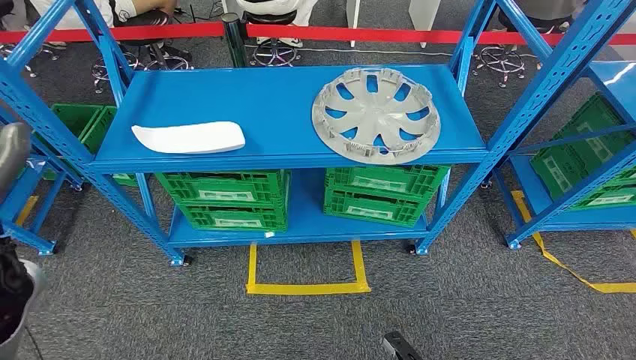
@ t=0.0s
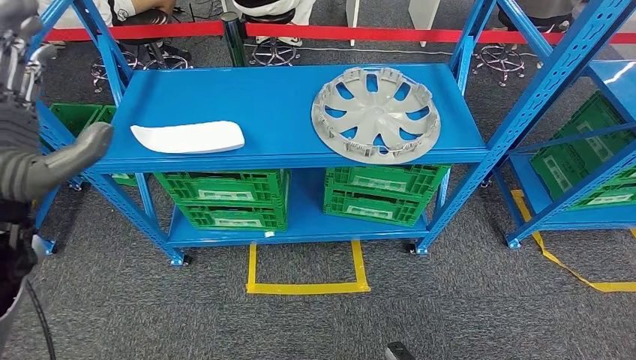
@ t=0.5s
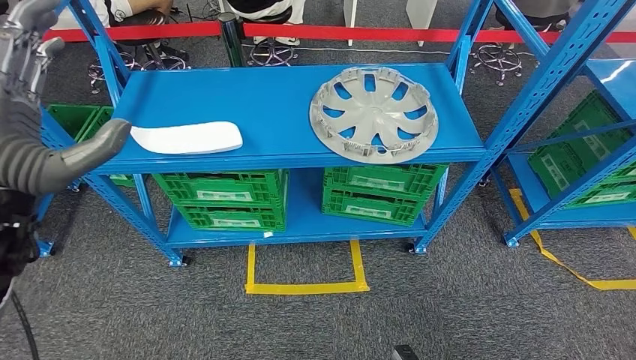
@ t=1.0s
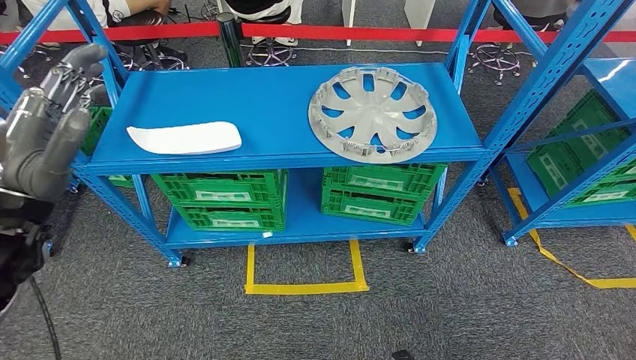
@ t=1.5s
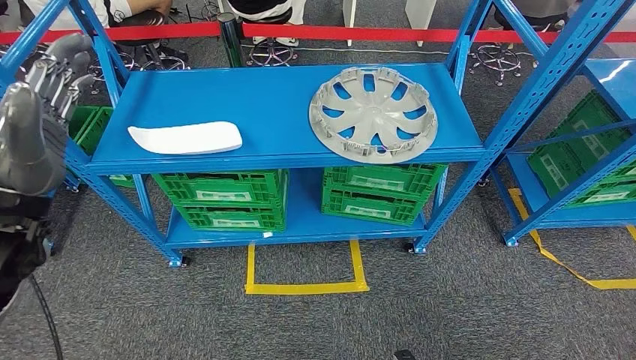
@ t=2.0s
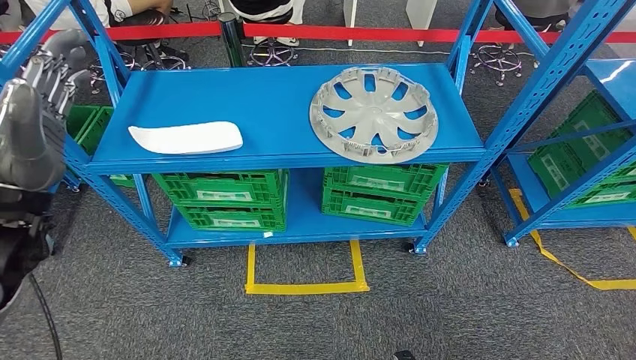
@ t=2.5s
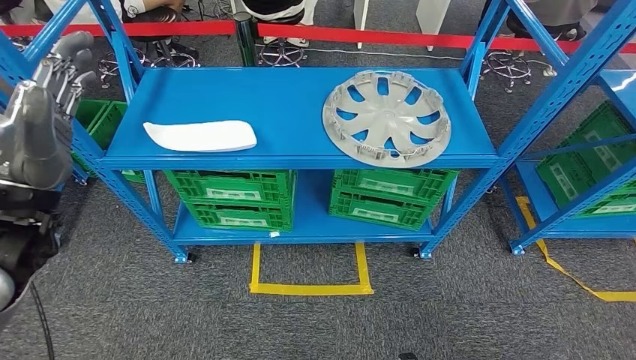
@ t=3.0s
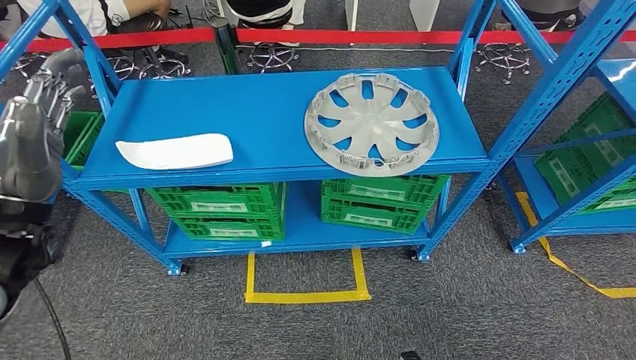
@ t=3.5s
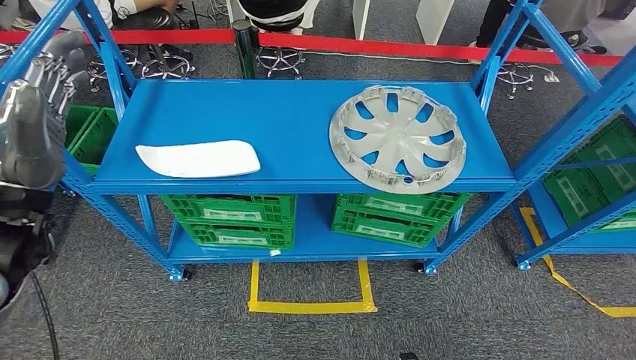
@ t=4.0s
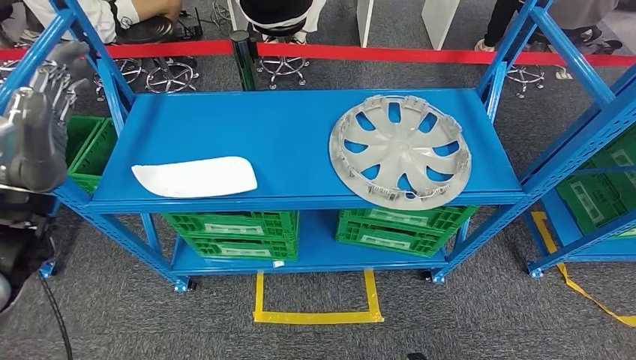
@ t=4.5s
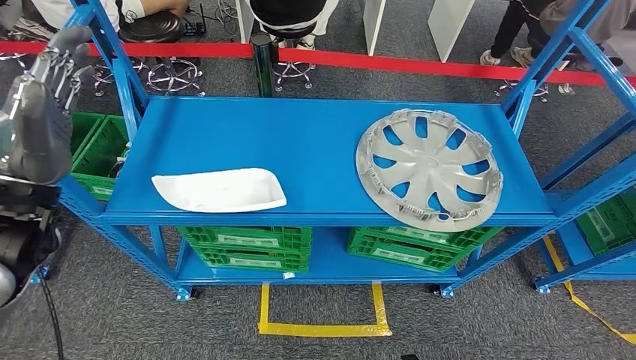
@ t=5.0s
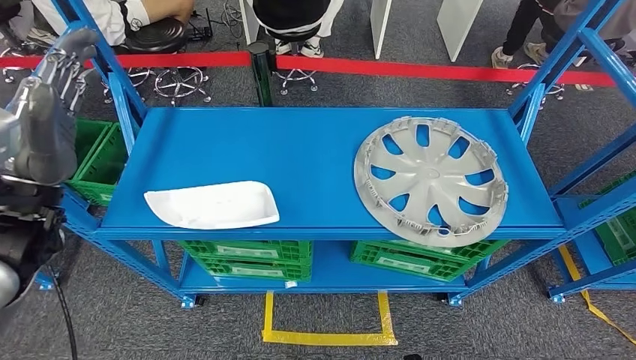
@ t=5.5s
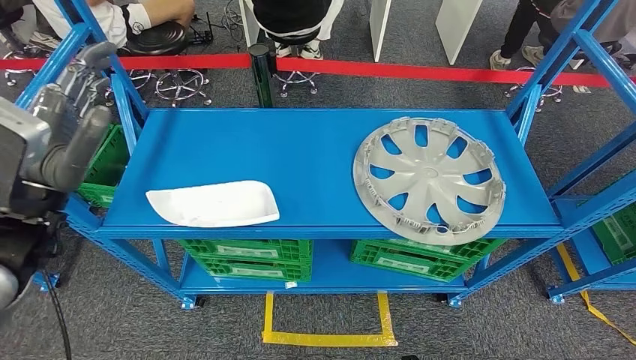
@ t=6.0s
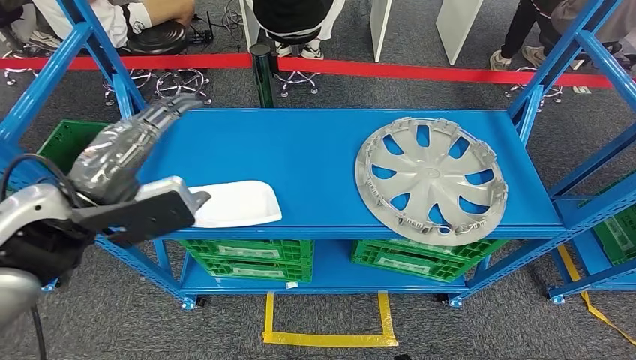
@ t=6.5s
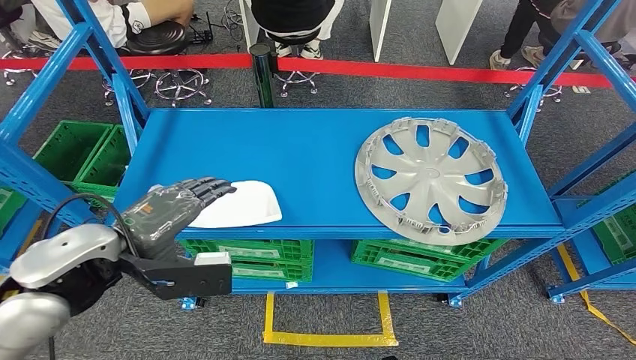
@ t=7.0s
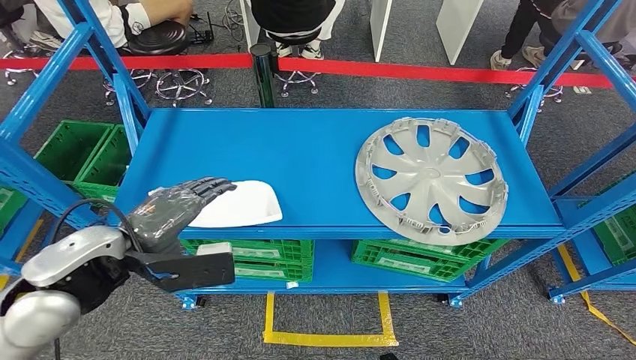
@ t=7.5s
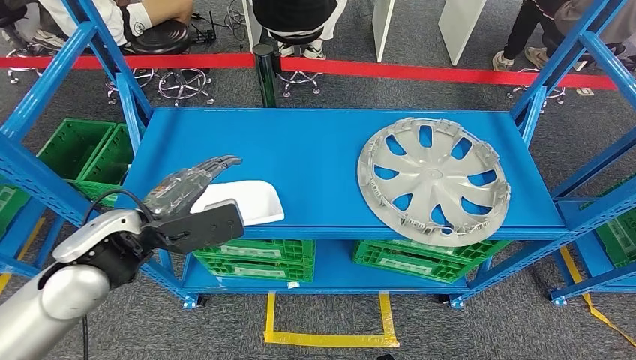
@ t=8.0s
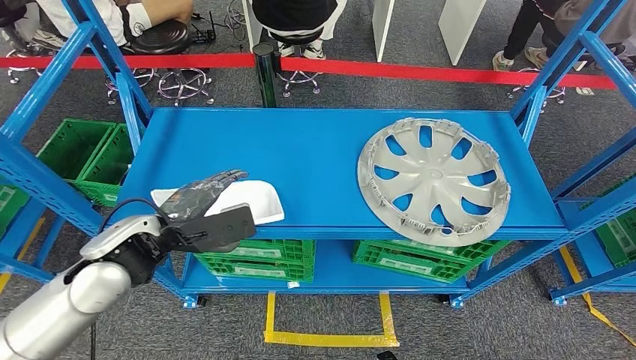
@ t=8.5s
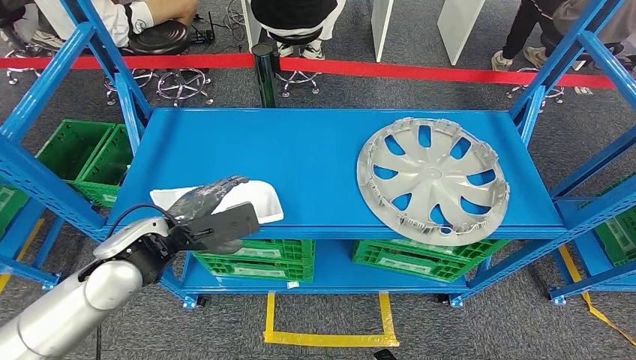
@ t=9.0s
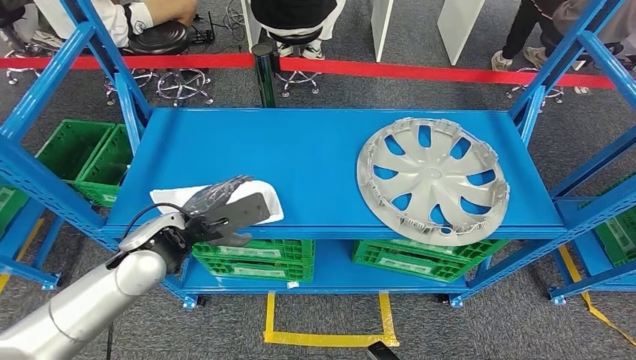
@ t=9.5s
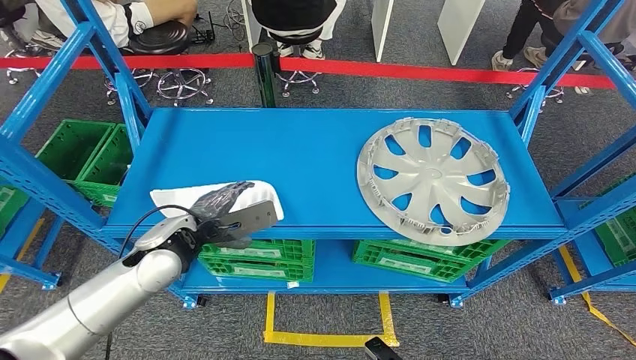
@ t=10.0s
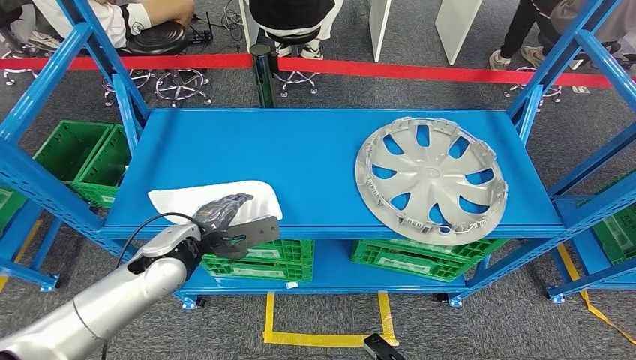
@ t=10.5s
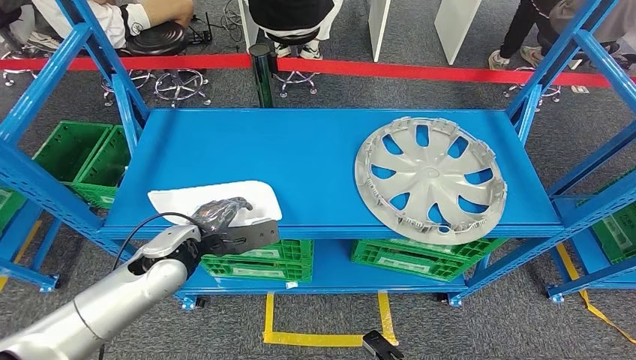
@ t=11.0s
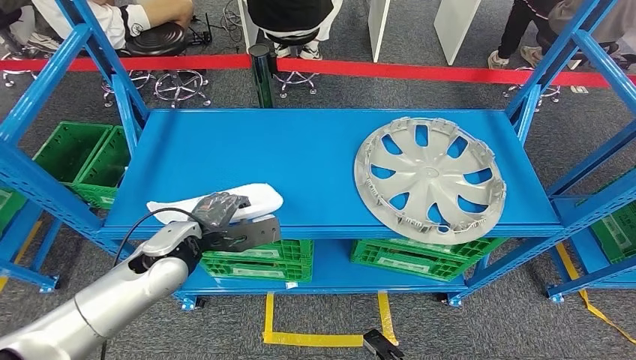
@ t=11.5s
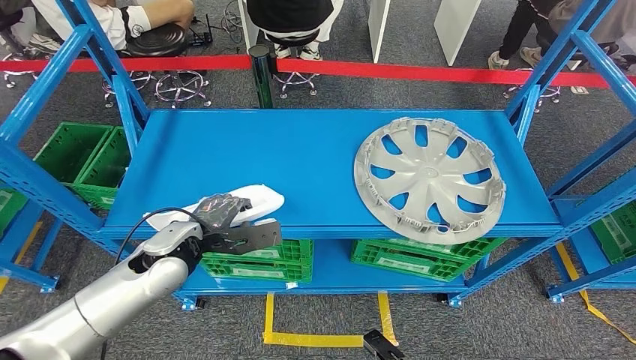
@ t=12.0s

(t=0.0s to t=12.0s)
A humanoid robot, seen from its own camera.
t=8.0s - t=10.0s: The left hand heads downward and forward, covering approximately 10 cm.
t=10.0s - t=12.0s: There are only small adjustments of the hands.

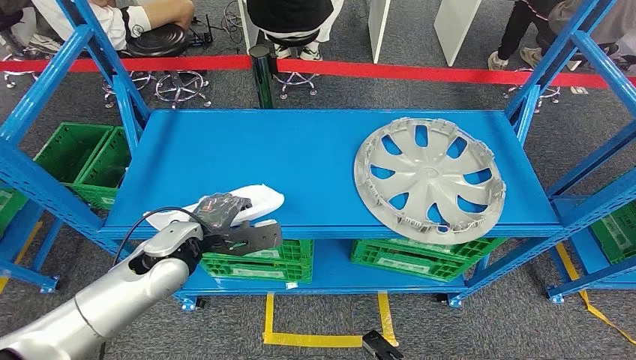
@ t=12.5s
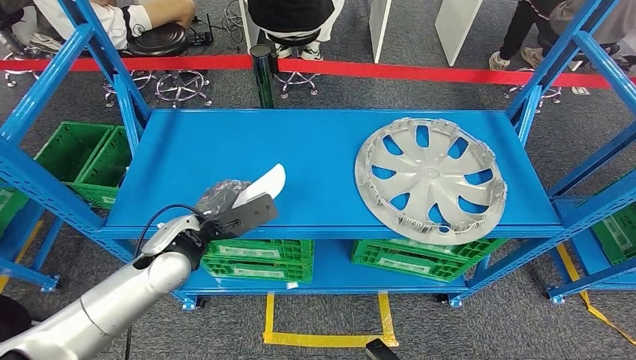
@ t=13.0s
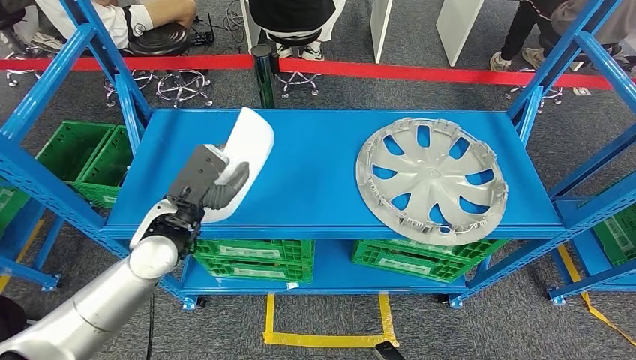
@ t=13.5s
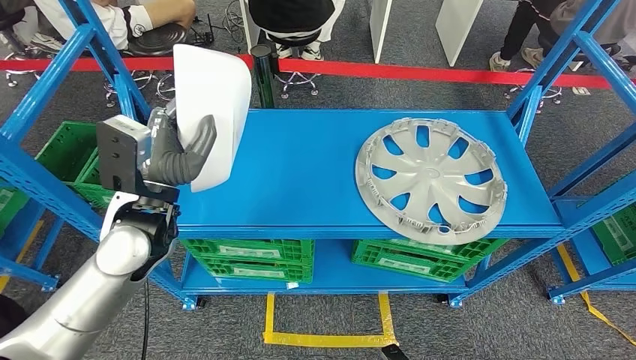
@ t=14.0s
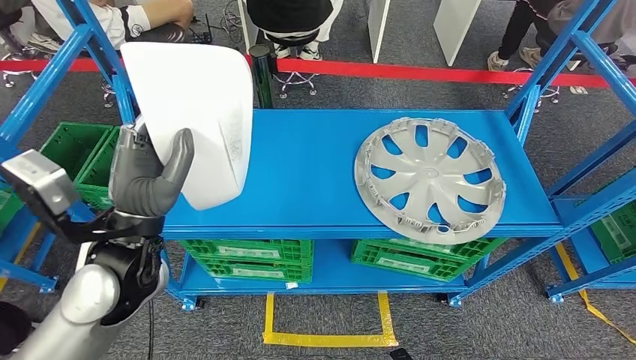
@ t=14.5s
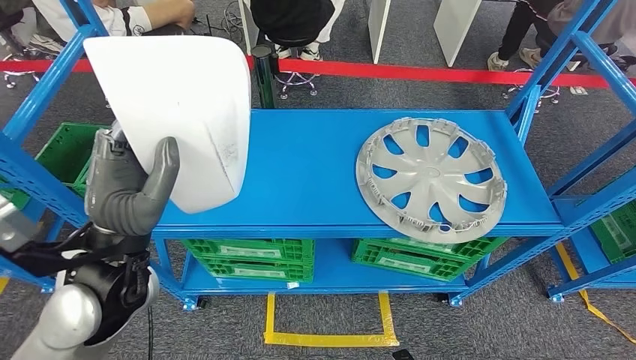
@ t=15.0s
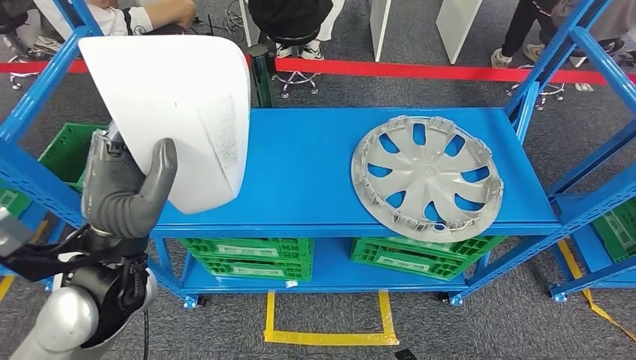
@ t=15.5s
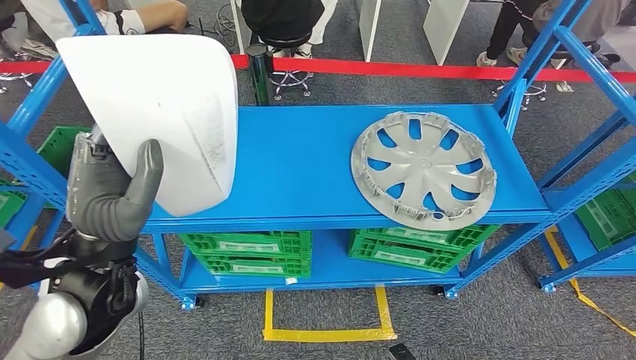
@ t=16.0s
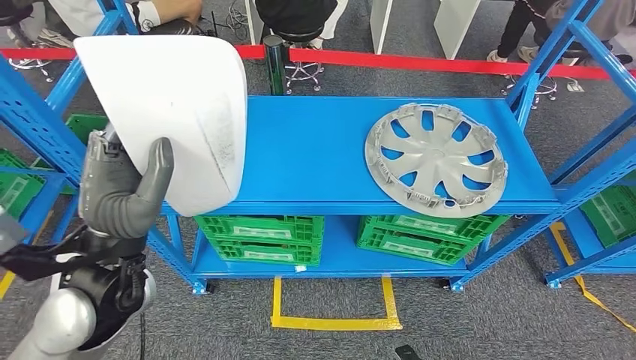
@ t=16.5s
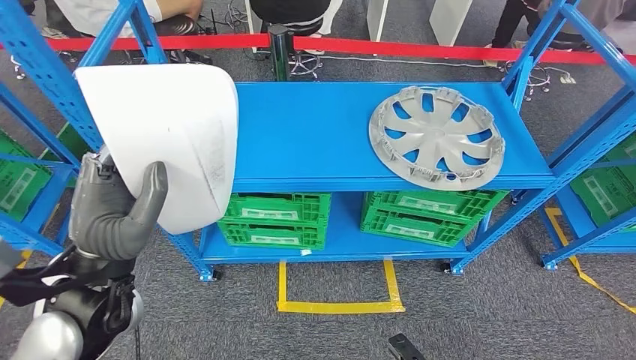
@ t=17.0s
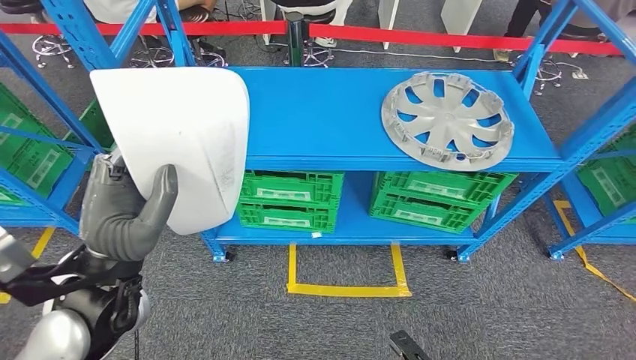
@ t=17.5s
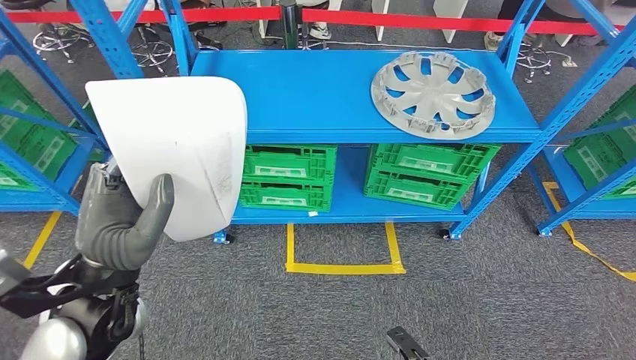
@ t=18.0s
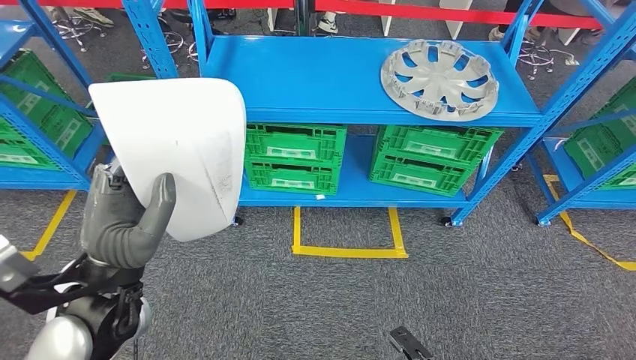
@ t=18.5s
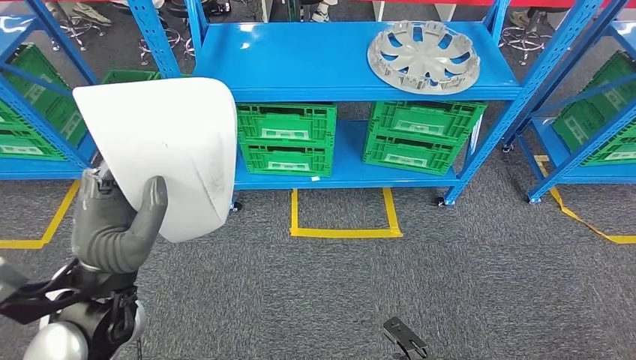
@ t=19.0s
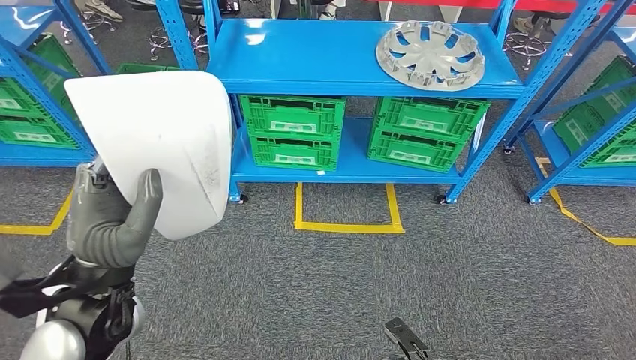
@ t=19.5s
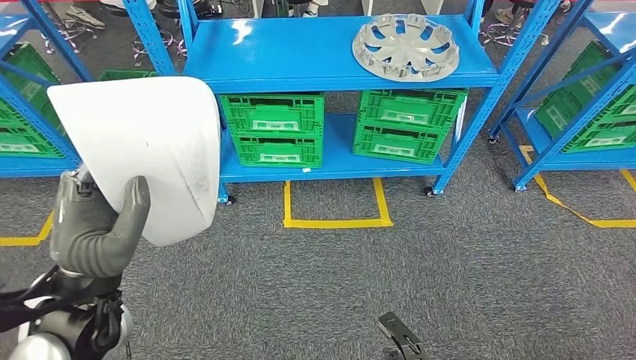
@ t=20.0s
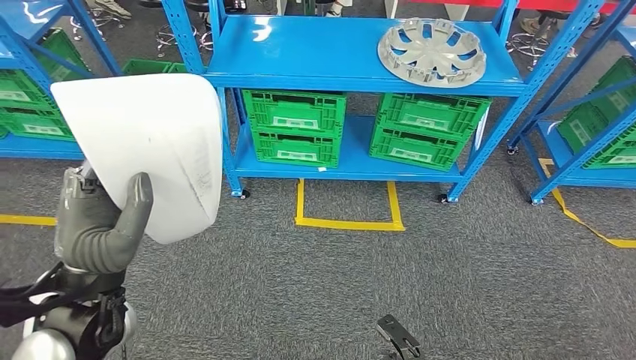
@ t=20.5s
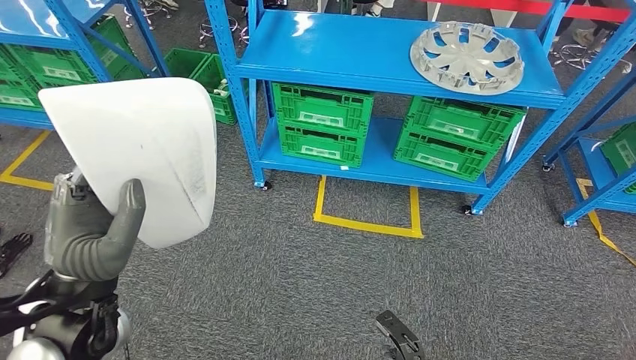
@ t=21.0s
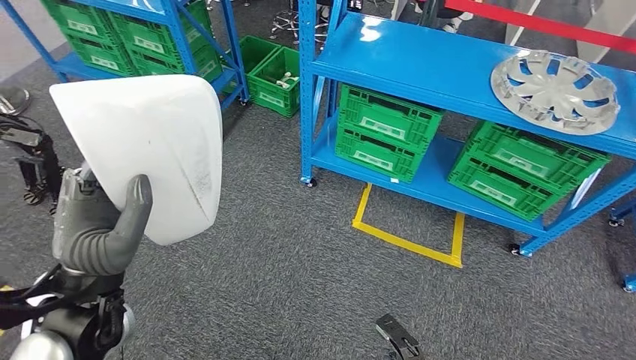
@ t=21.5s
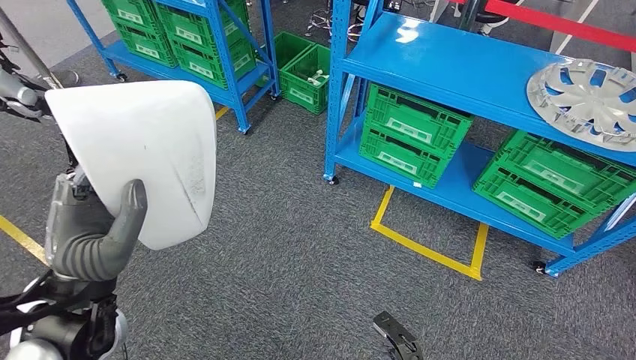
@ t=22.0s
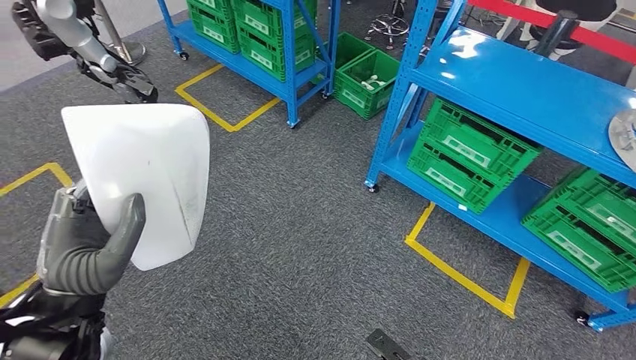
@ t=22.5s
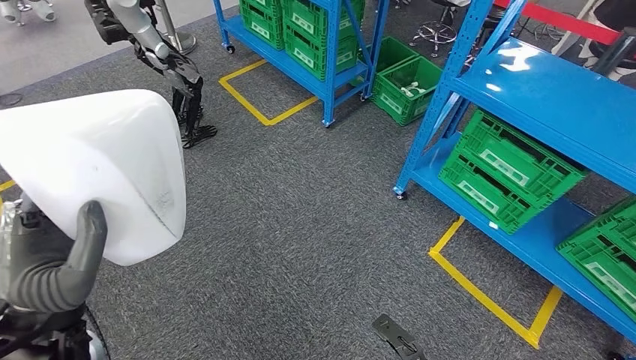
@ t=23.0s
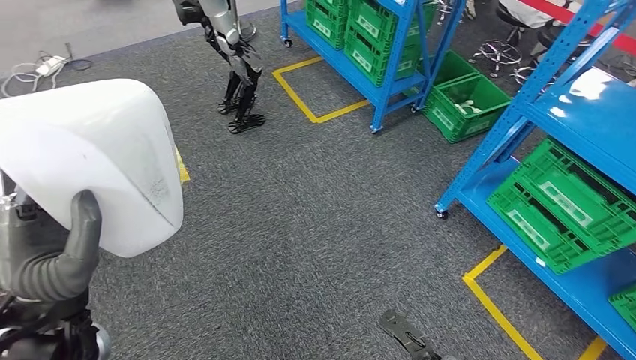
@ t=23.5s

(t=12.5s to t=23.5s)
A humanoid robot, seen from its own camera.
Step, t=12.5s - t=14.5s: Pick up the small parts from the shelf.
t=12.5s - t=14.5s: The right hand changes place by about 5 cm. Meanwhile the left hand moves upward and backward, roughly 15 cm.
